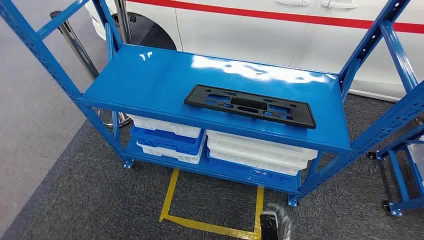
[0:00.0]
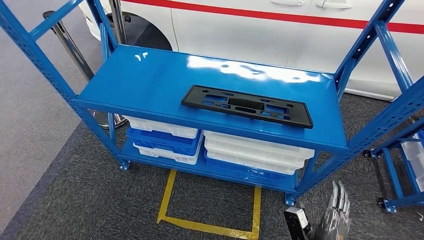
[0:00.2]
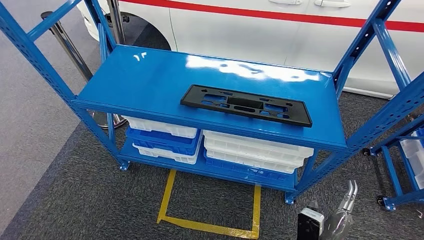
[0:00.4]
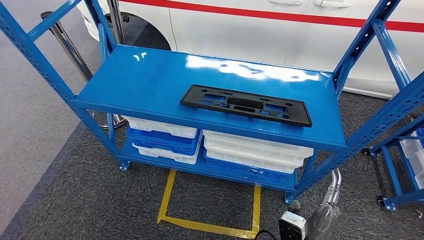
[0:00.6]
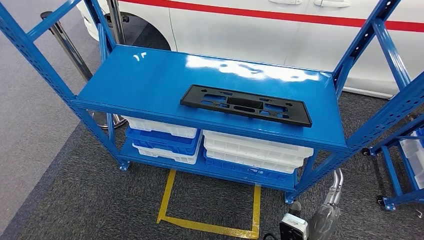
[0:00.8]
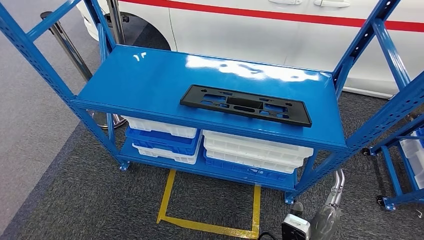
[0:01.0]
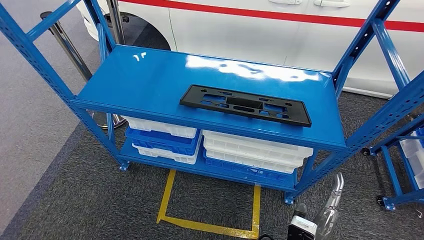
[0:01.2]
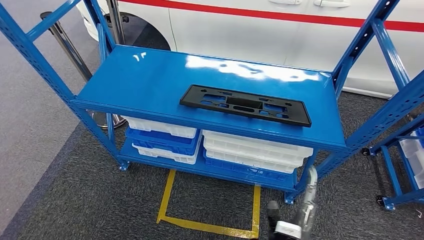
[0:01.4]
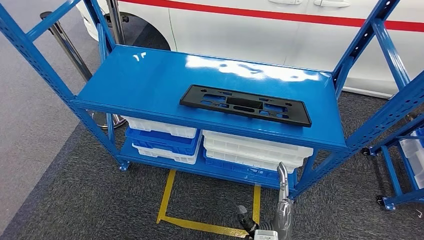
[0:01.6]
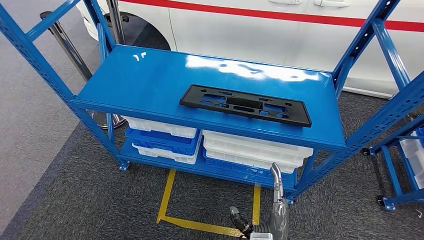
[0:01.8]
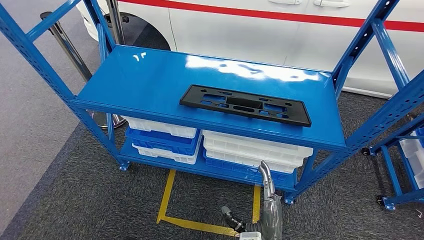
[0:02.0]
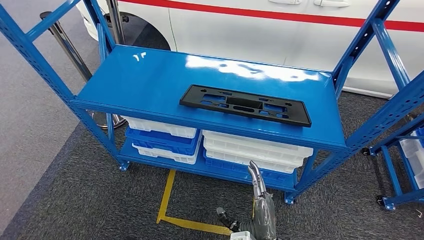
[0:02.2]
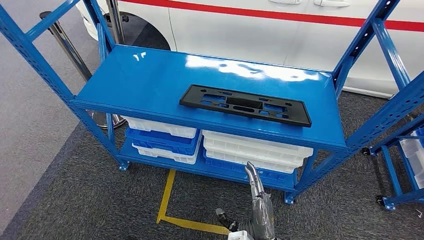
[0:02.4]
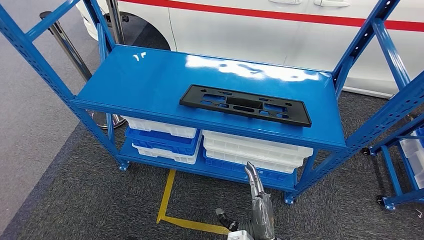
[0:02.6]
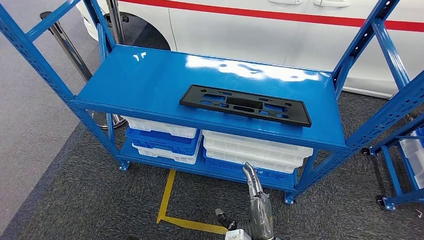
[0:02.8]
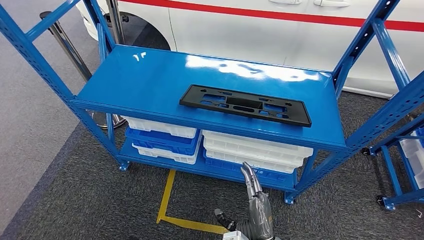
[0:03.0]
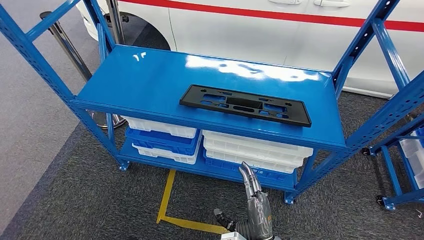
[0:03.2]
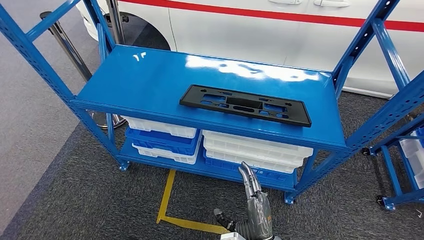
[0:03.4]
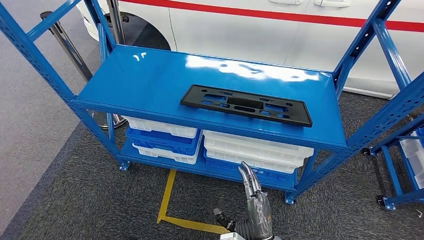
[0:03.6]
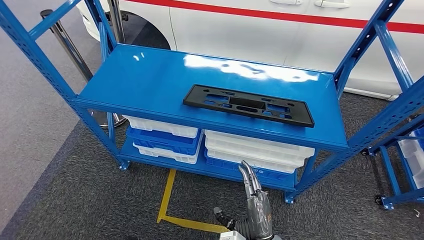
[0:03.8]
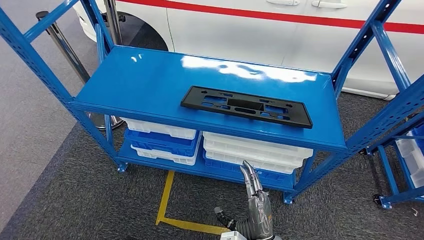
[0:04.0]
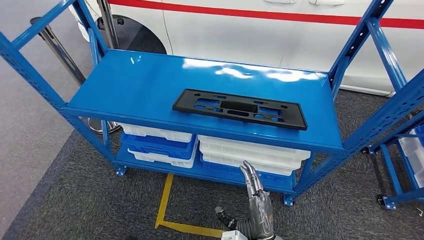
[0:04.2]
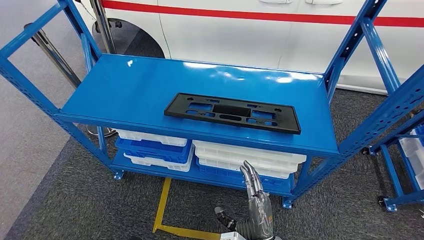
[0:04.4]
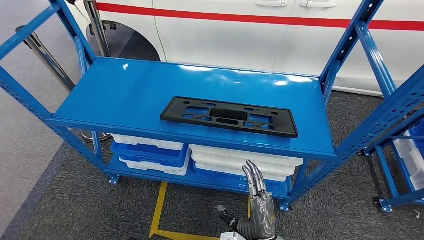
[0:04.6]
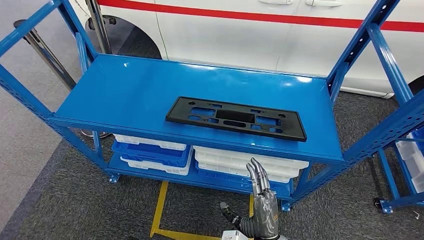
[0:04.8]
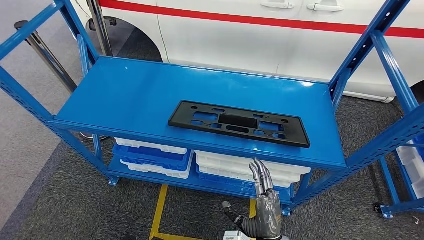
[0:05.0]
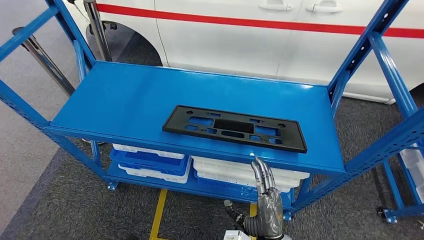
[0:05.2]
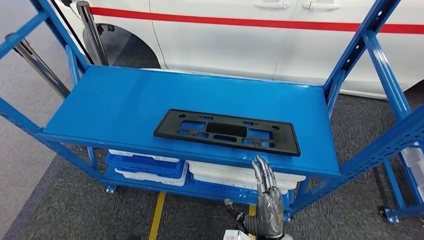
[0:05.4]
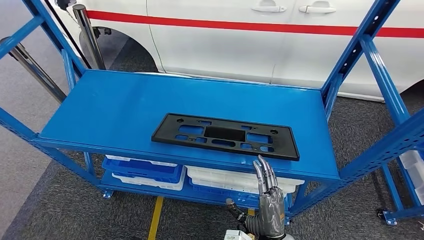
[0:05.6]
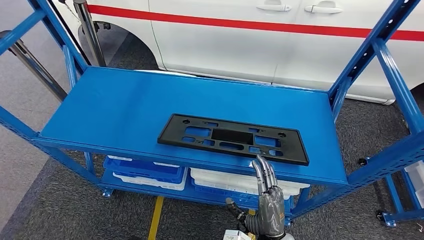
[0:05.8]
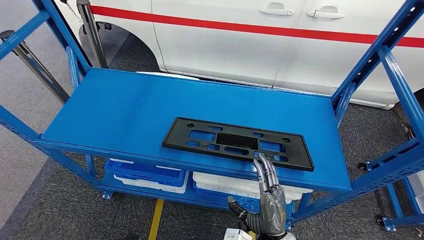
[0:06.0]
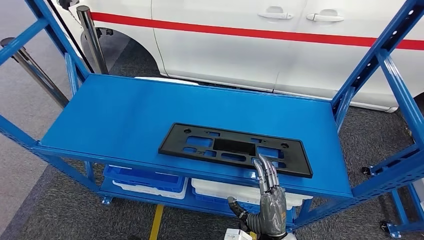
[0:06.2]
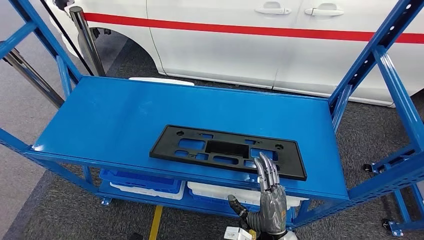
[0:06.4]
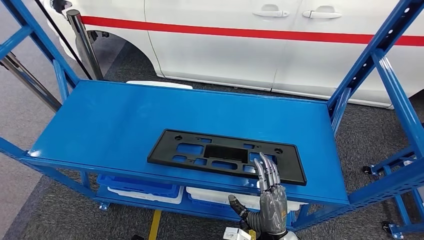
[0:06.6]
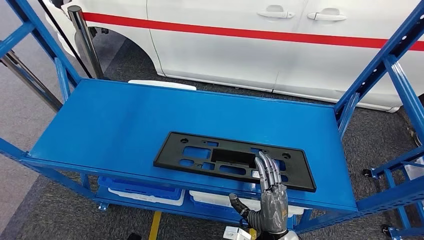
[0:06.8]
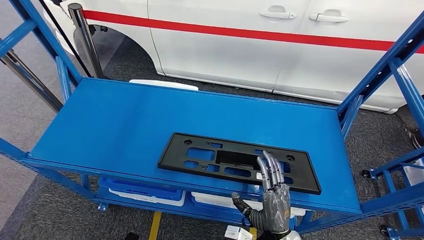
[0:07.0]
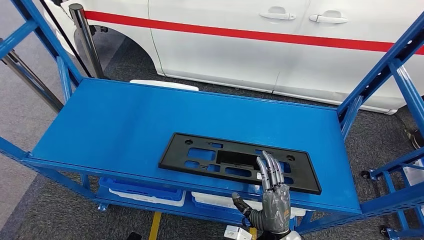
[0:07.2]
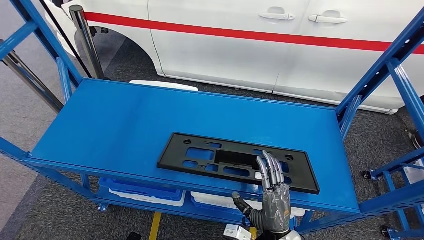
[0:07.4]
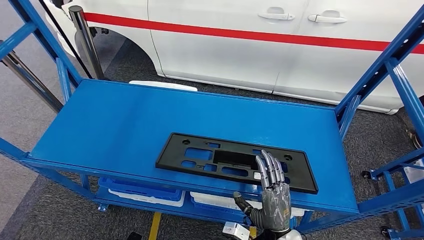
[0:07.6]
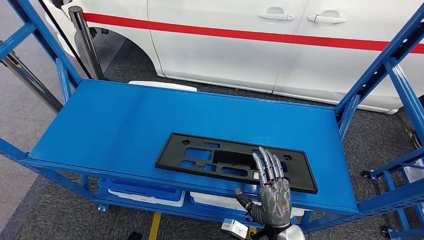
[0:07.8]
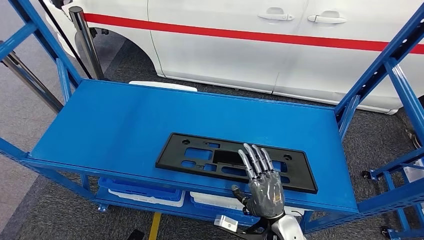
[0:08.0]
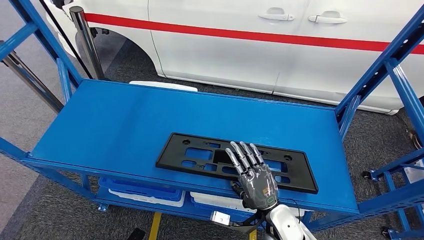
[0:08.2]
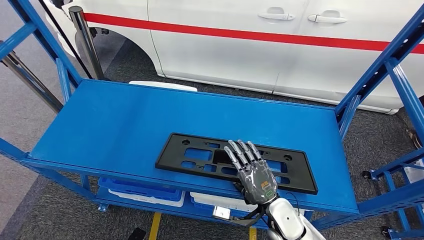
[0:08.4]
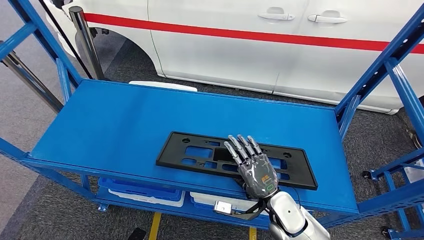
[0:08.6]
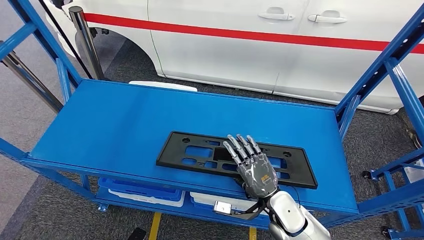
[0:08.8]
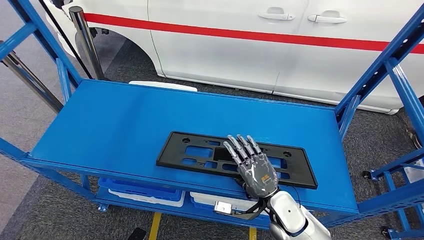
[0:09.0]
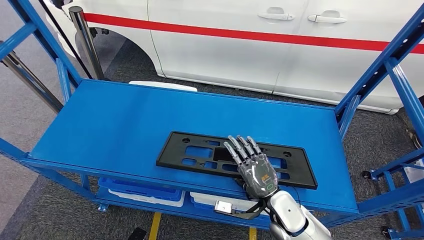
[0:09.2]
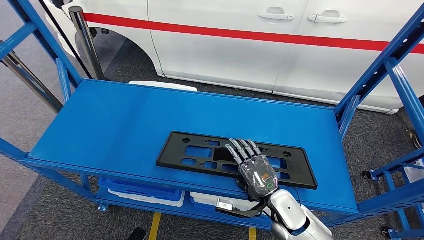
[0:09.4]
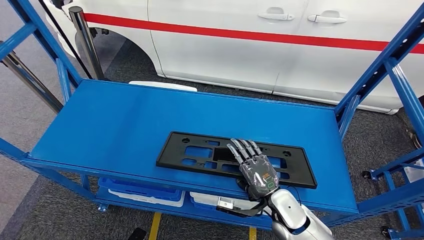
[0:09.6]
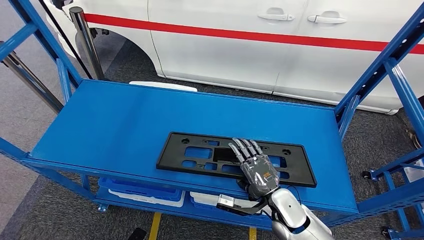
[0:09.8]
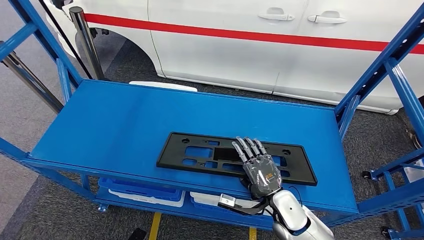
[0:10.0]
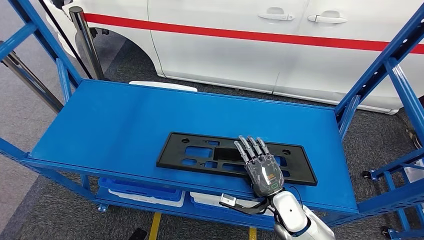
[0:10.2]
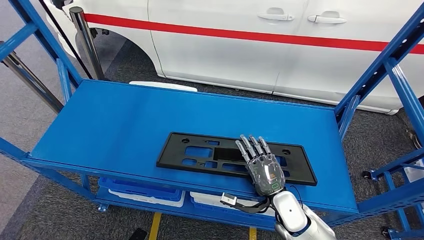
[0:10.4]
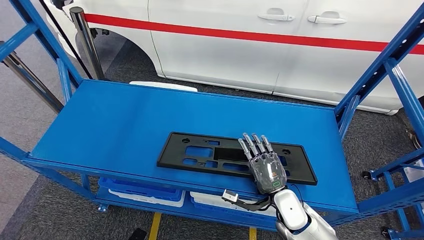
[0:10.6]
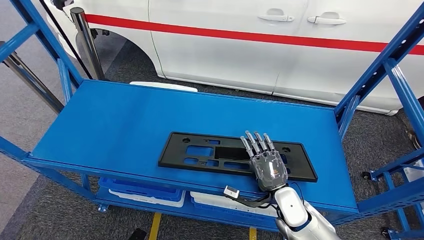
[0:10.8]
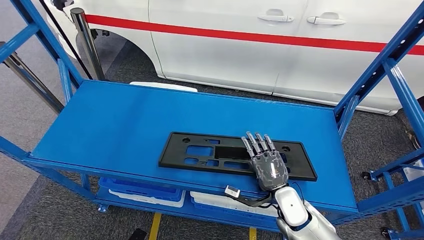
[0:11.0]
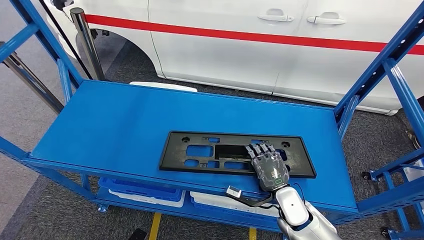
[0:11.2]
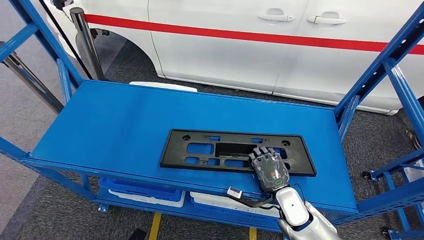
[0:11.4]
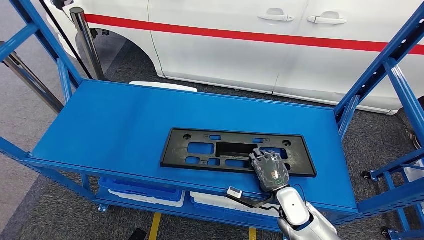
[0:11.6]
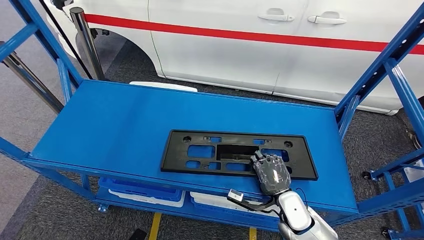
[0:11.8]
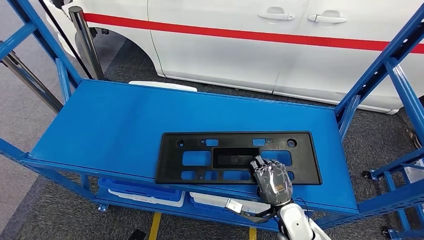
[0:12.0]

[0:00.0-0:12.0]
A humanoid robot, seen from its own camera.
0:01.6 to 0:03.0: The hands make only small movements.
0:07.6 to 0:09.0: The right hand is displaced forward by roughly 10 cm.
0:09.0 to 0:10.4: The hands make only small movements.
0:10.4 to 0:12.0: There are only small adjustments of the hands.

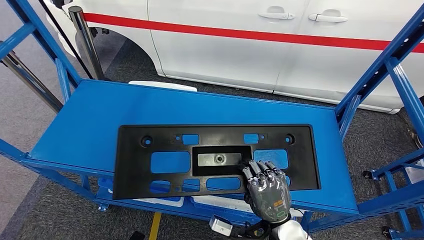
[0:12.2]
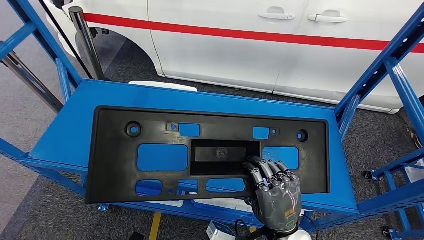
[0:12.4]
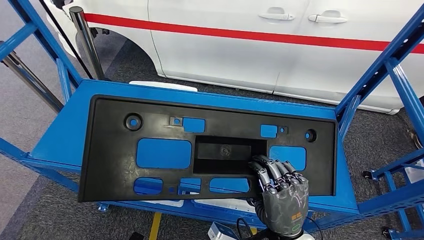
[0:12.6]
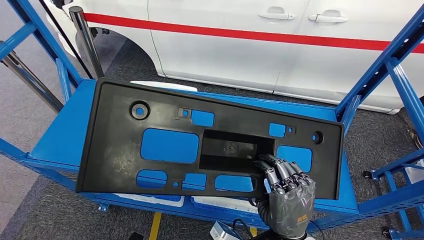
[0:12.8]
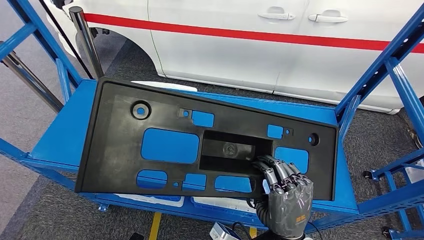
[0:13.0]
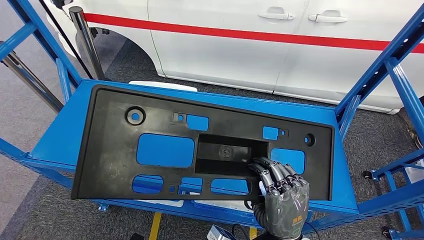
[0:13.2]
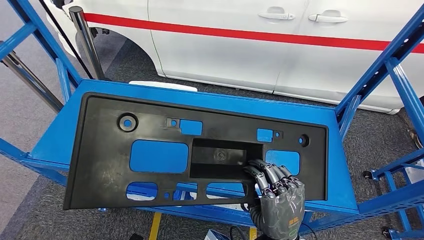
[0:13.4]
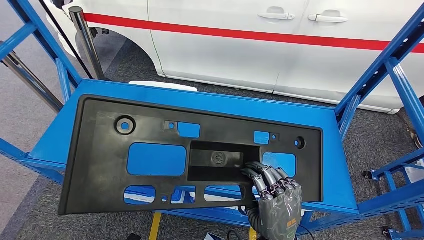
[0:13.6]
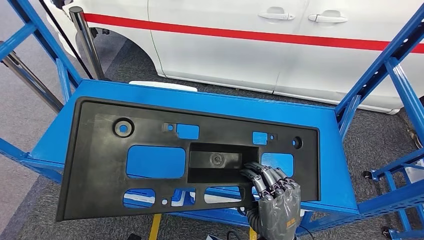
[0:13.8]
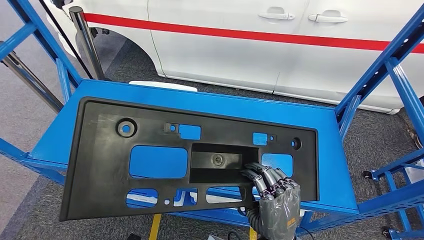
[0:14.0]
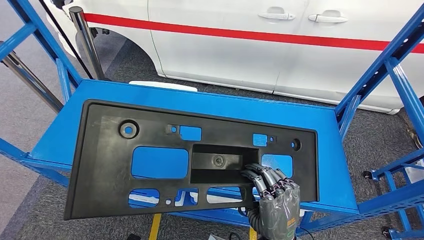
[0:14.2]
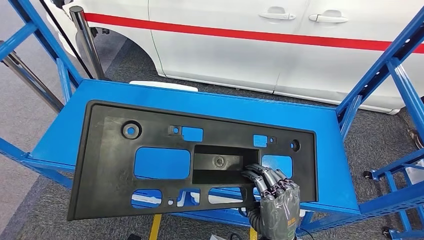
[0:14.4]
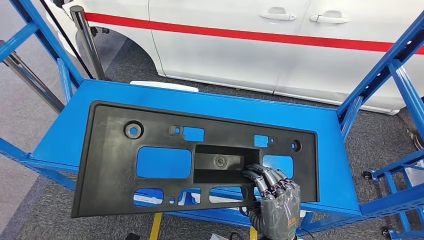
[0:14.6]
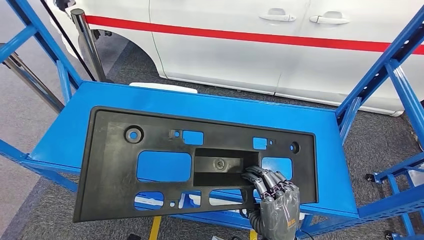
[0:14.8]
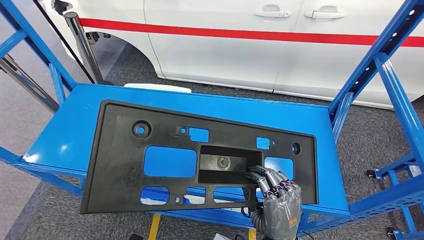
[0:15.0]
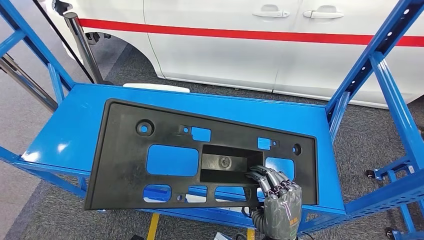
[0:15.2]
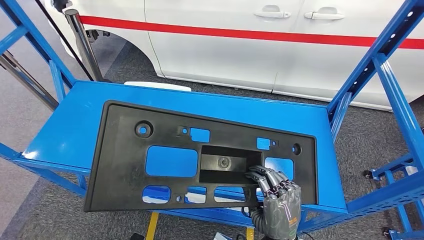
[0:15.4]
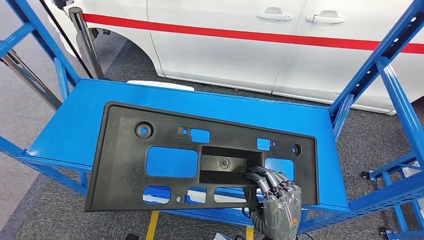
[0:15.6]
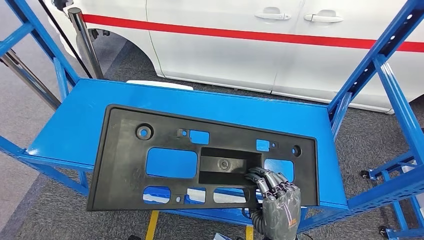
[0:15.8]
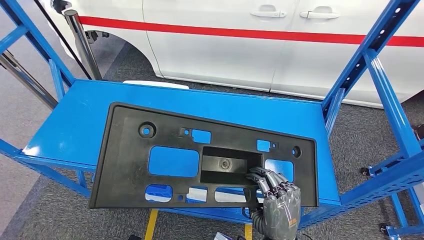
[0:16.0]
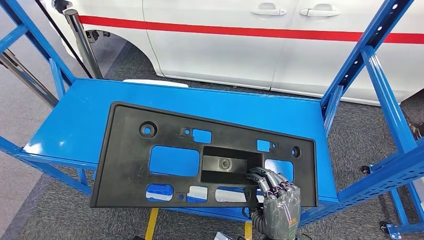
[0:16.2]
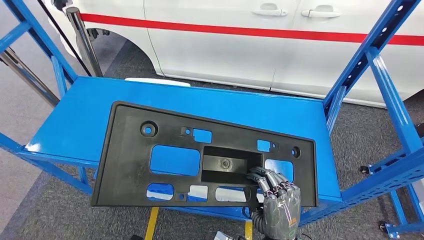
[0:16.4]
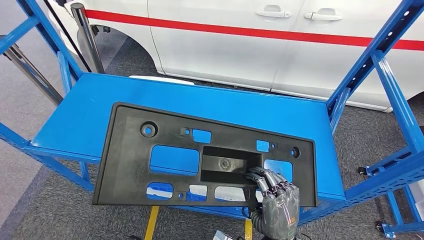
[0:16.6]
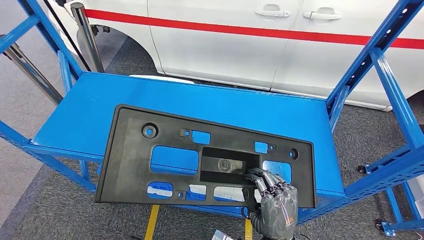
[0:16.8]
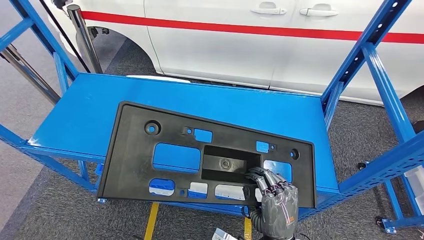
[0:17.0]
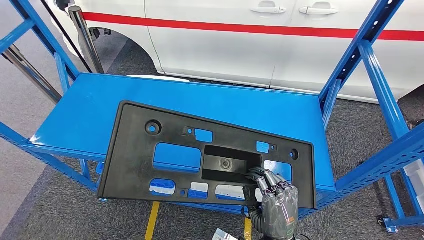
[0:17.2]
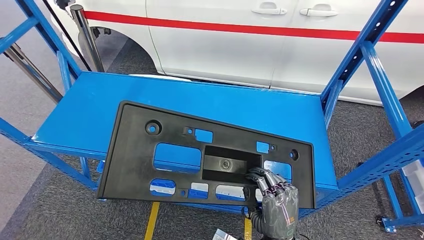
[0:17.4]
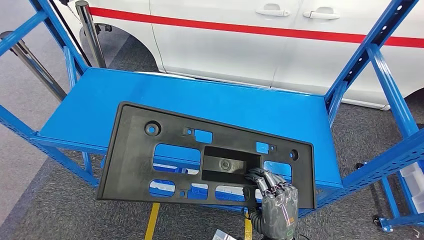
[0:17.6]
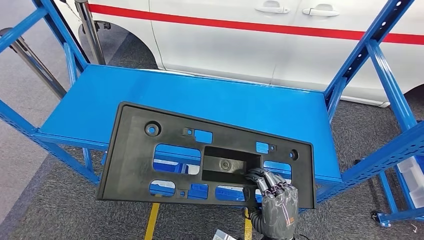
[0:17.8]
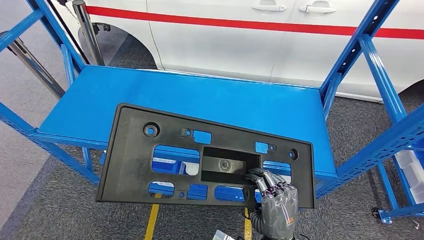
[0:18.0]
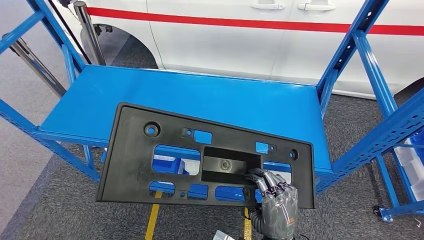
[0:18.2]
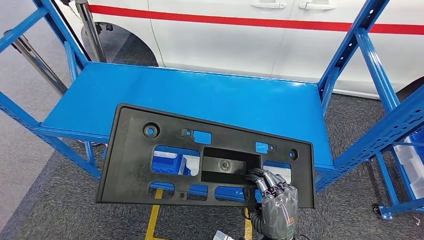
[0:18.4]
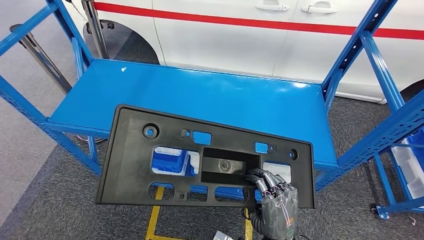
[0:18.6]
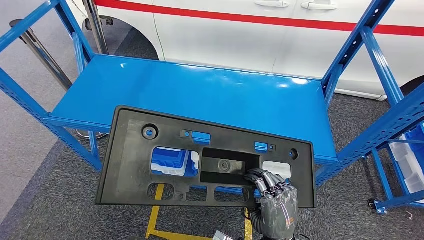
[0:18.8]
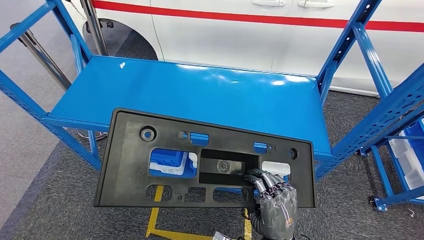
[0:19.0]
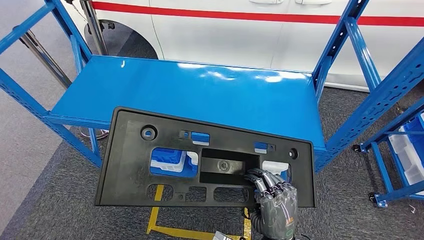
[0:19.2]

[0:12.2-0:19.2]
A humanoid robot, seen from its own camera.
0:12.2 to 0:13.6: The right hand shifts approximately 5 cm upward.
